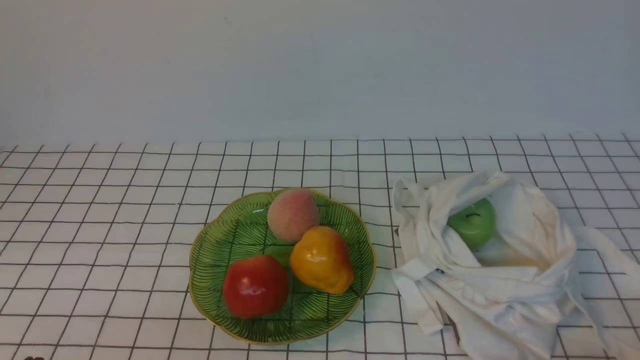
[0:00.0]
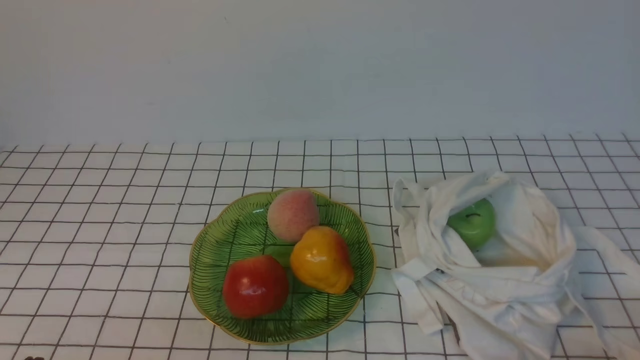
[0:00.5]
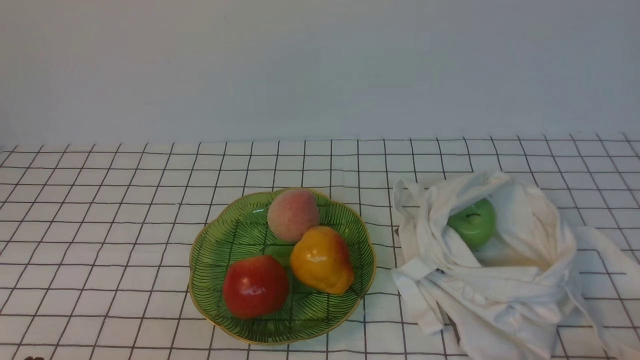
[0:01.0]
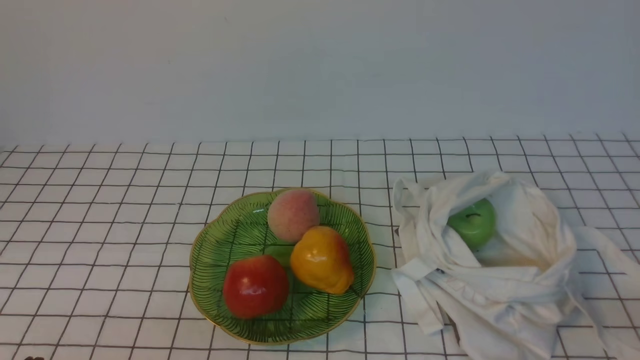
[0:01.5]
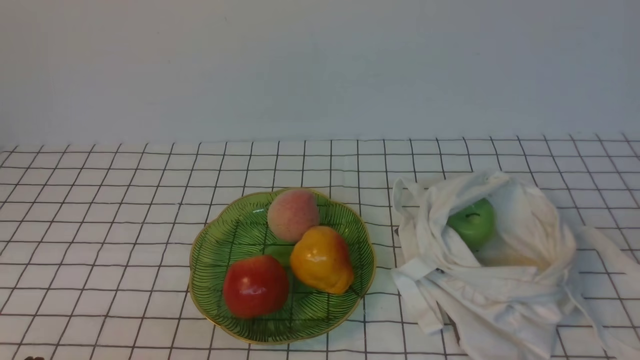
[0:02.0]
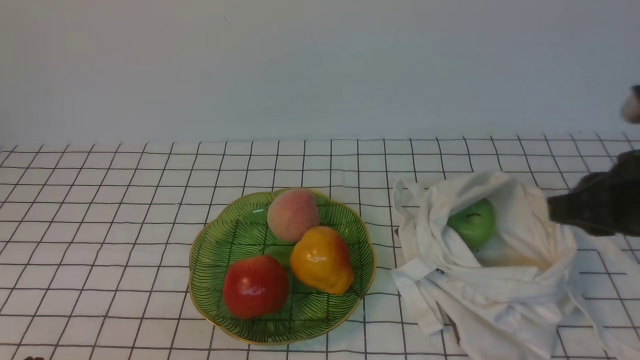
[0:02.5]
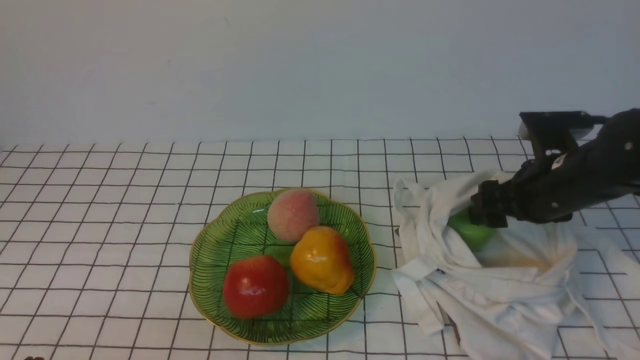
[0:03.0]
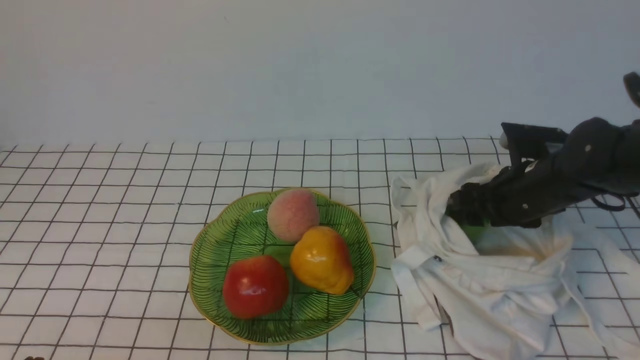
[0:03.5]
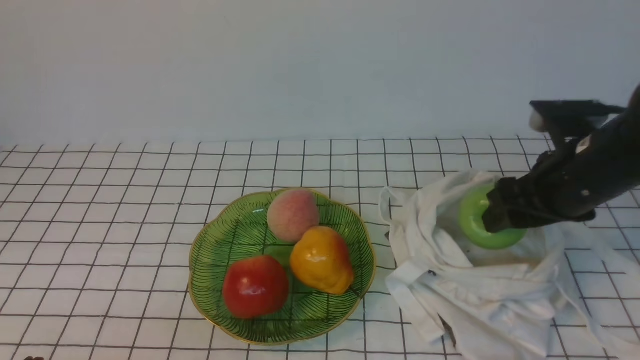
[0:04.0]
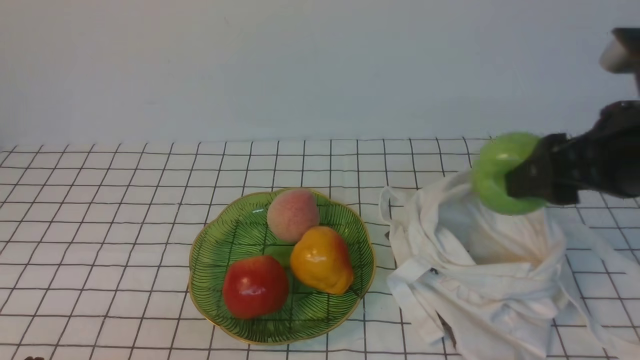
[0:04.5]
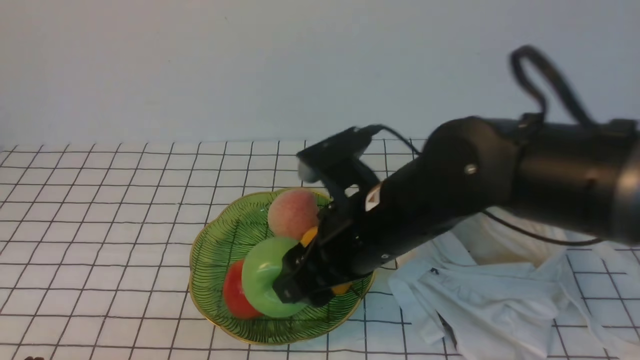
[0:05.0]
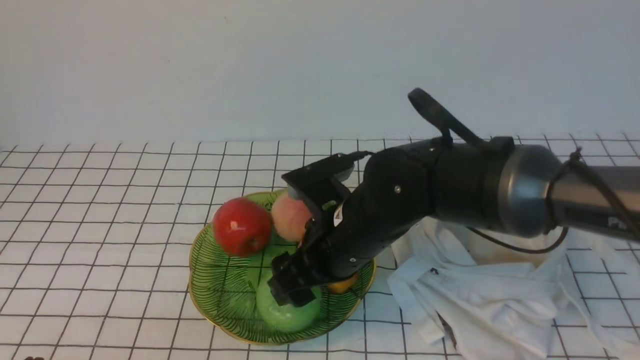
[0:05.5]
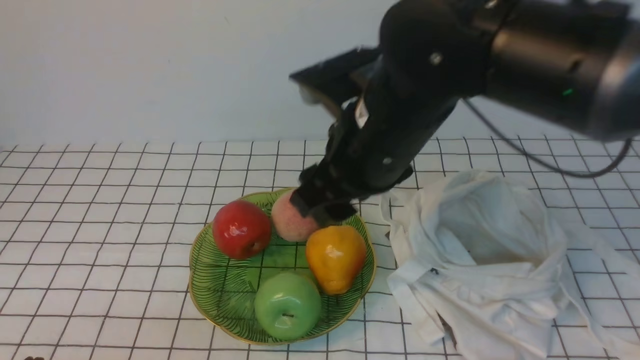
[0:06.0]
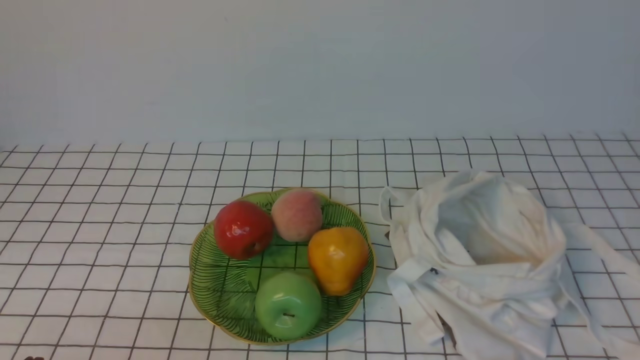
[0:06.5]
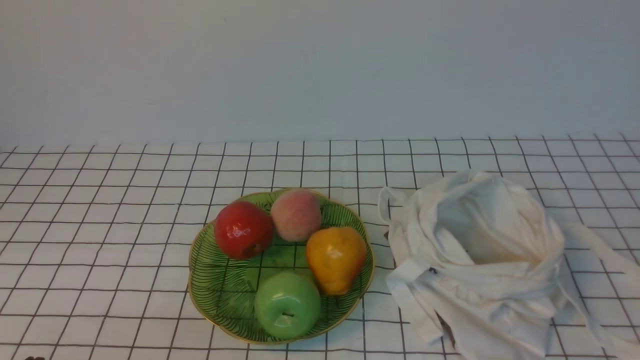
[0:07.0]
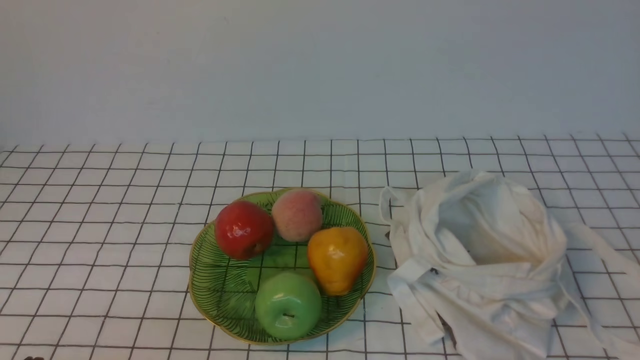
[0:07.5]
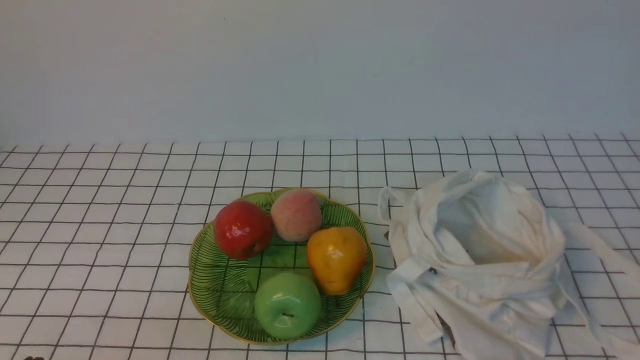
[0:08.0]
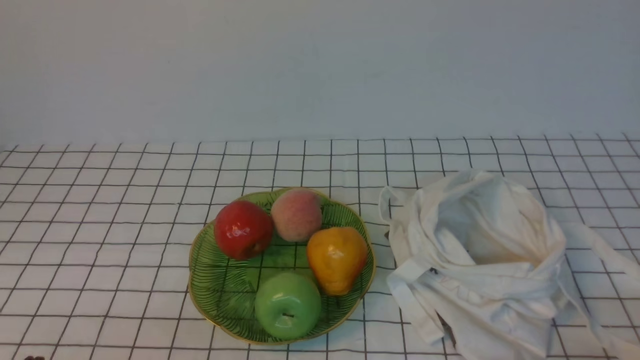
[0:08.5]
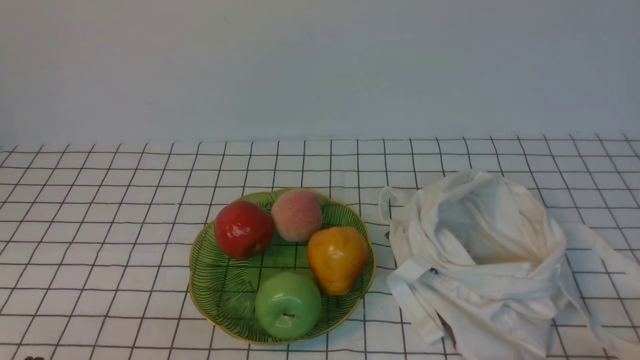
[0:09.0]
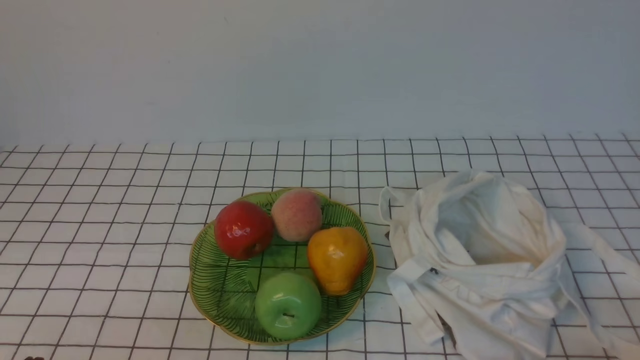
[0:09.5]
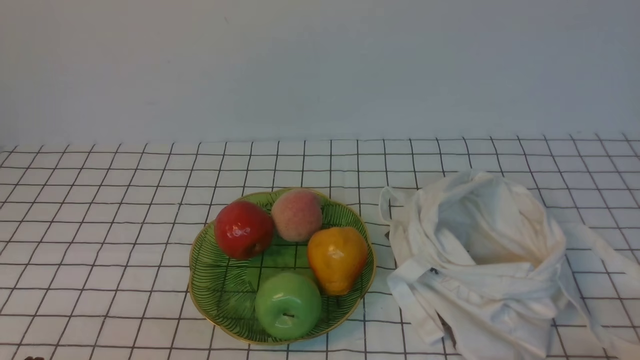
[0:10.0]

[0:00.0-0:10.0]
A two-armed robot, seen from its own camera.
Step, 0:00.0 to 0:04.0: use the right arm to grab an apple from the bag.
Step, 0:04.5 to 0:05.5: use the right arm to put the apple into the empty plate on the left.
0:02.0 to 0:04.0: The right gripper travels forward by approximately 25 cm, and opens up.
0:04.0 to 0:06.0: The right gripper goes some 20 cm to the left and upward.
0:06.0 to 0:08.0: The right gripper travels backward and to the right by about 35 cm, and closes up.
